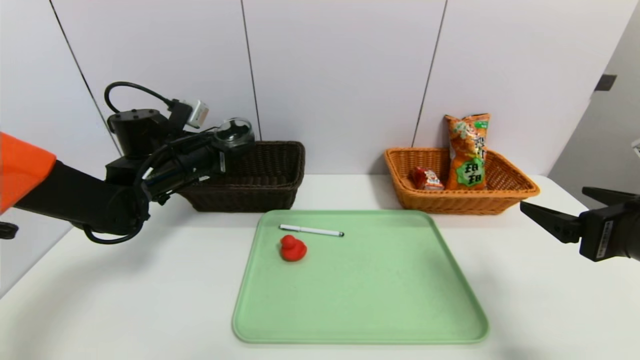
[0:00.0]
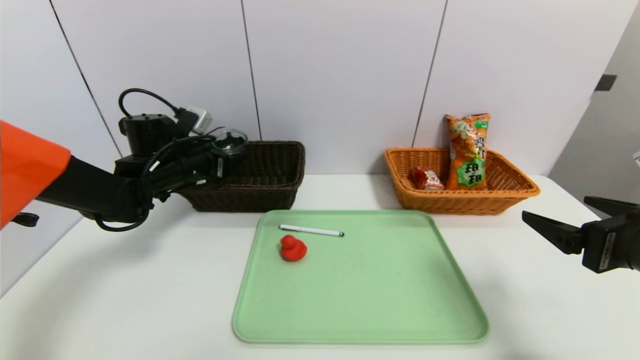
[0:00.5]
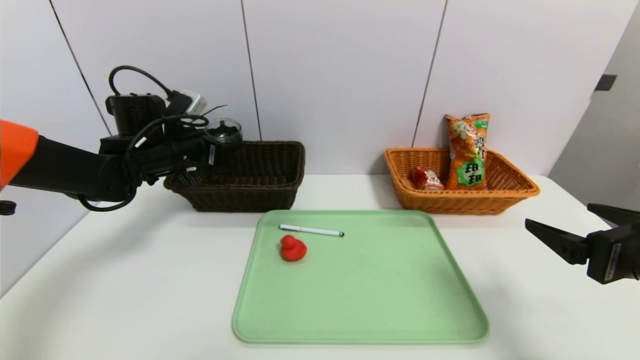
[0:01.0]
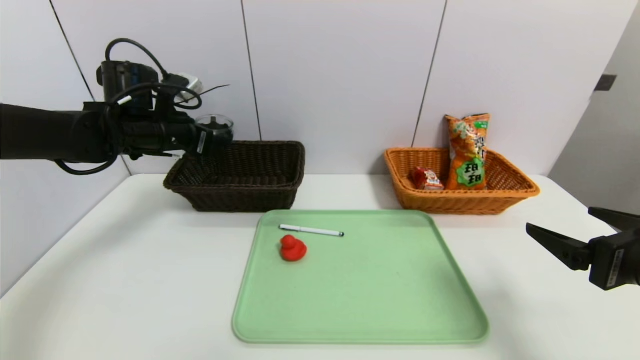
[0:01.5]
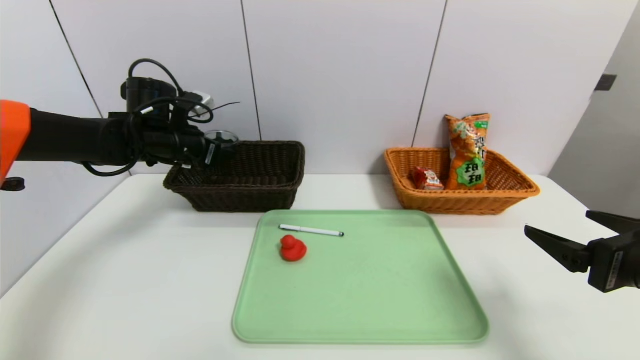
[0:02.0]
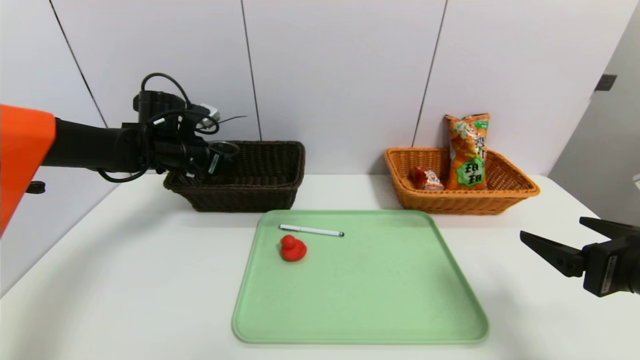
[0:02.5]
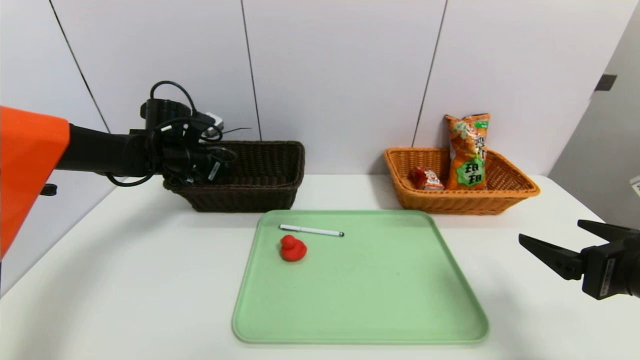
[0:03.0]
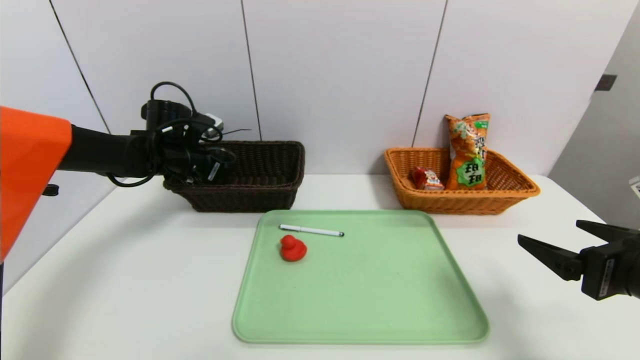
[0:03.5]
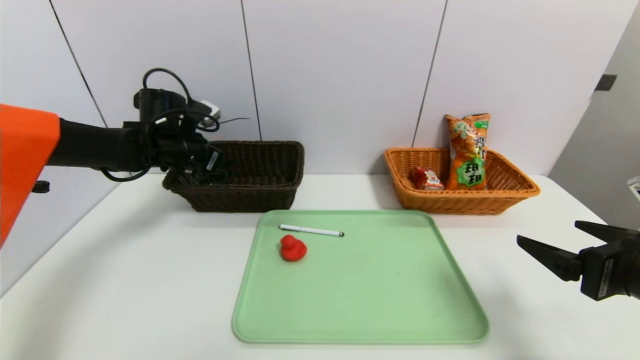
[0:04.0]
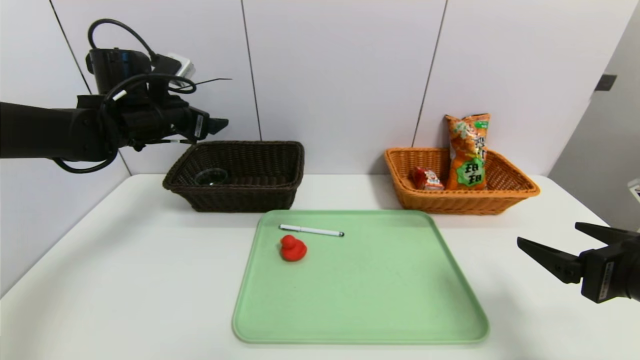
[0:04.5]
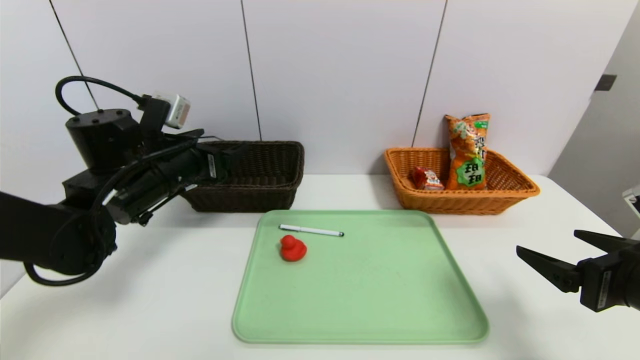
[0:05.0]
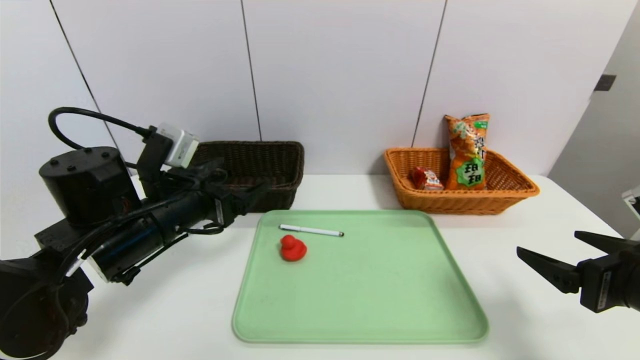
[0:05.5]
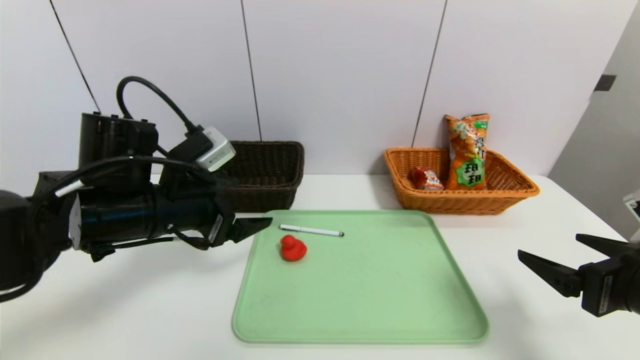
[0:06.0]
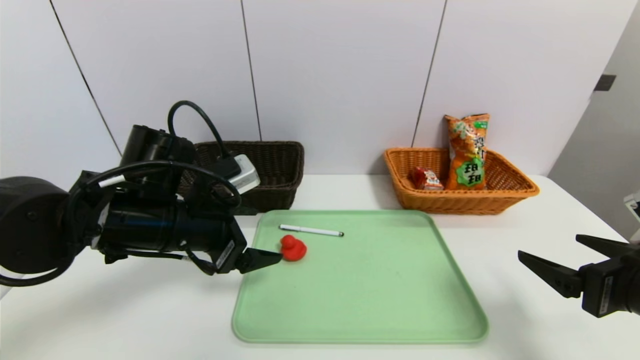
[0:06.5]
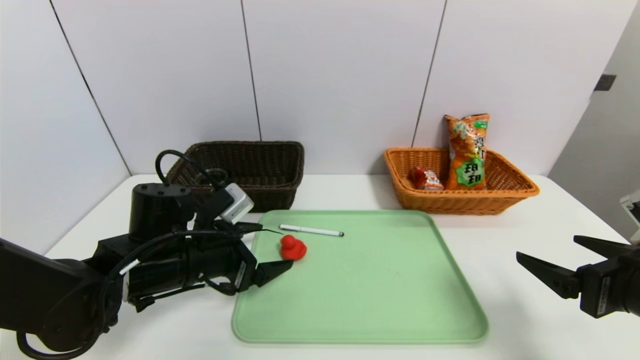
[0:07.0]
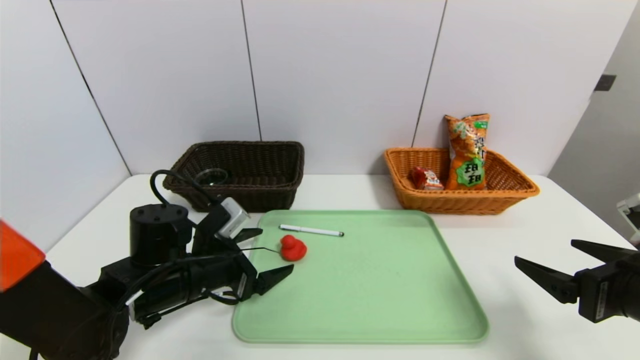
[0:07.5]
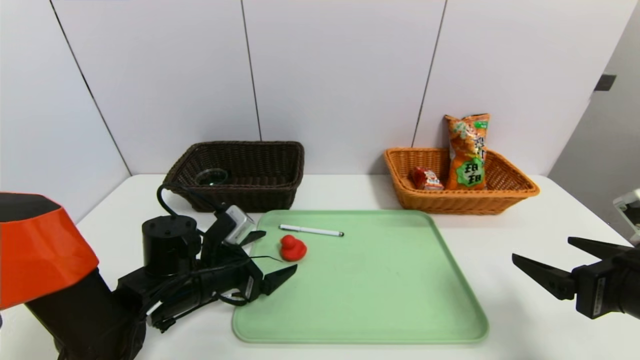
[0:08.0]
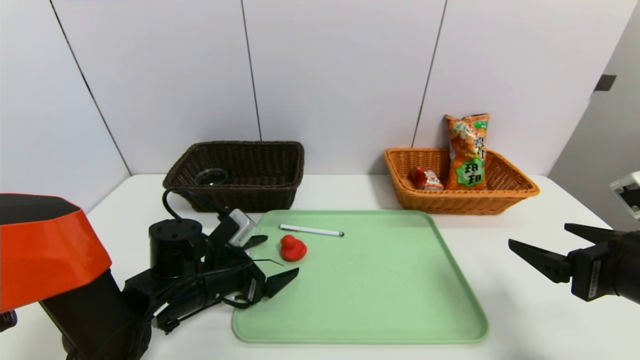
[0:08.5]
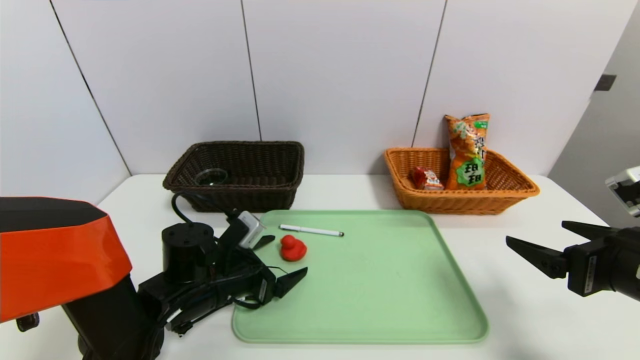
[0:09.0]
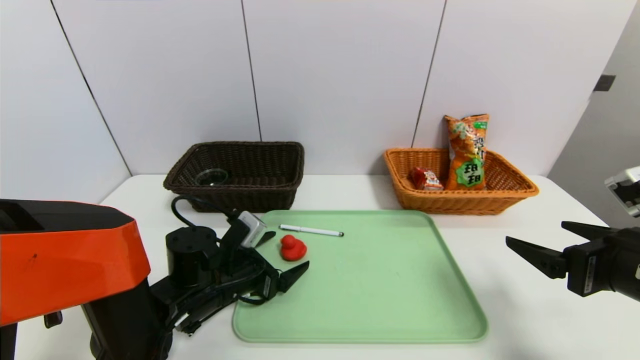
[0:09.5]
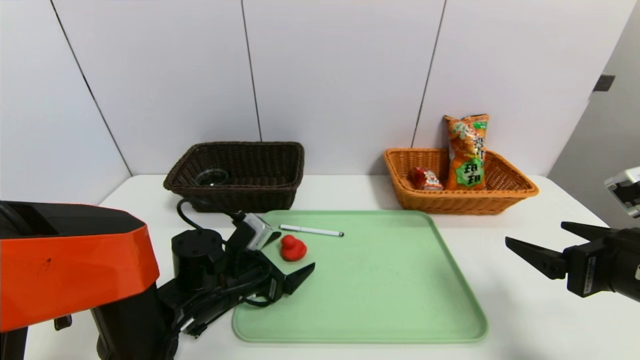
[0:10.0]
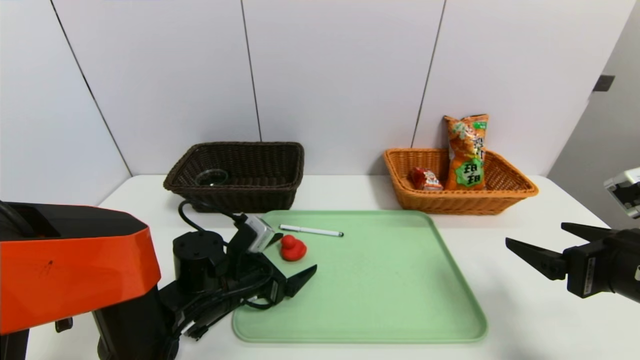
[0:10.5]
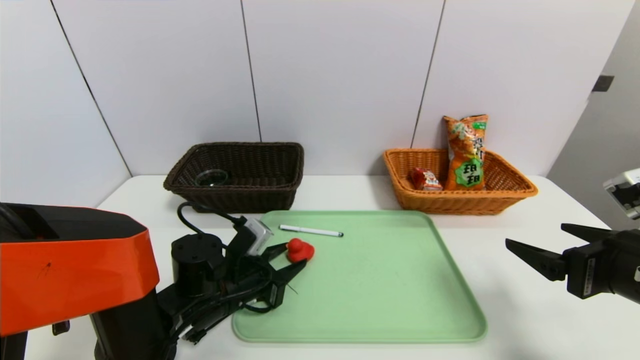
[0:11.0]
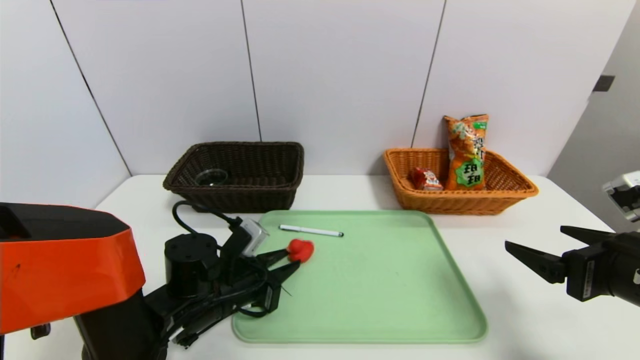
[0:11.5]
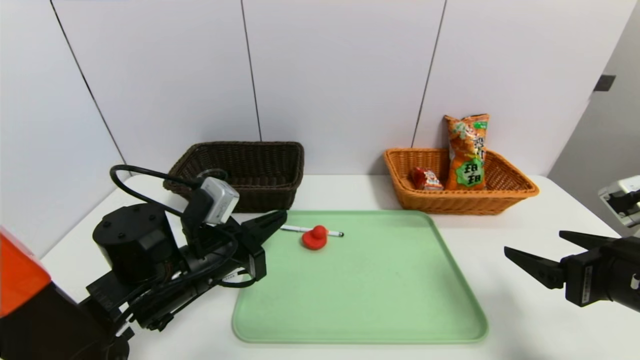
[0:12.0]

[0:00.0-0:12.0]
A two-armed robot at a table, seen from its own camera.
Task of the whole recording: place the food in the right basket with the right gripper, and place the non food items in the left basket with the left gripper.
Step, 0:00.0 to 0:04.0: Grasp the black glass cup and put it in the left basket.
0:00.0 to 0:02.0: The left gripper moves some 5 cm.
0:02.0 to 0:04.0: The grippers move only a little.
0:04.0 to 0:06.0: The left gripper moves backward, some 20 cm.
0:06.0 to 0:08.0: The left gripper goes some 15 cm downward.
0:08.0 to 0:10.0: The grippers move only a little.
0:10.0 to 0:12.0: The left gripper shifts roughly 10 cm upward, and closes up.

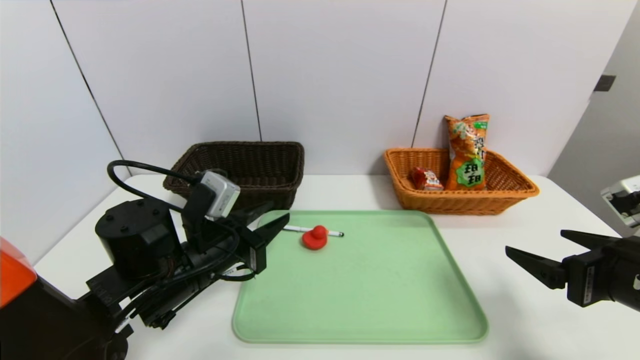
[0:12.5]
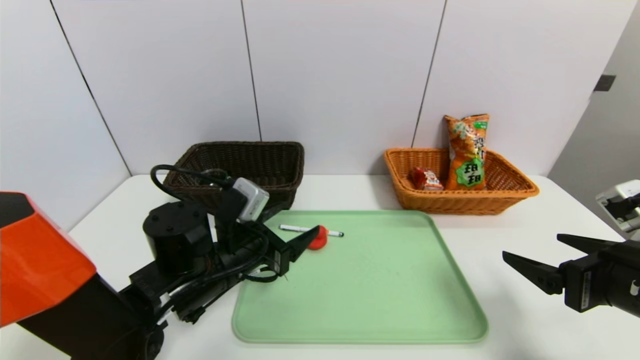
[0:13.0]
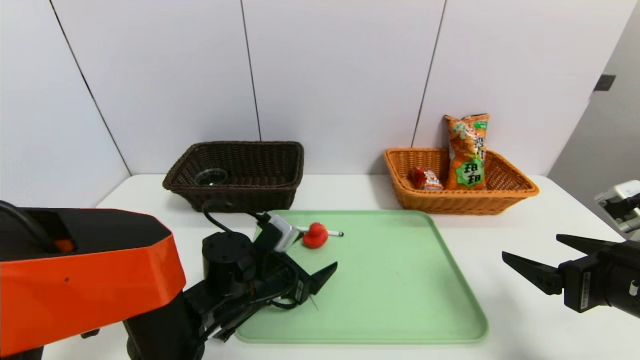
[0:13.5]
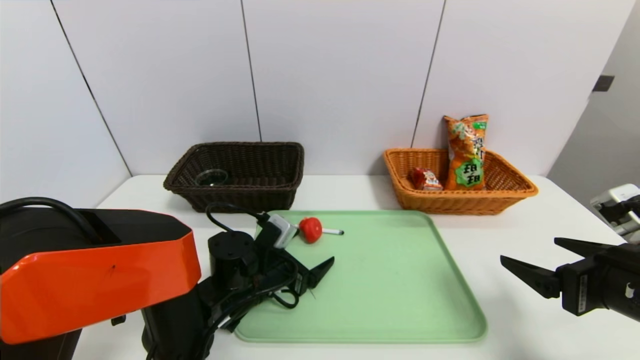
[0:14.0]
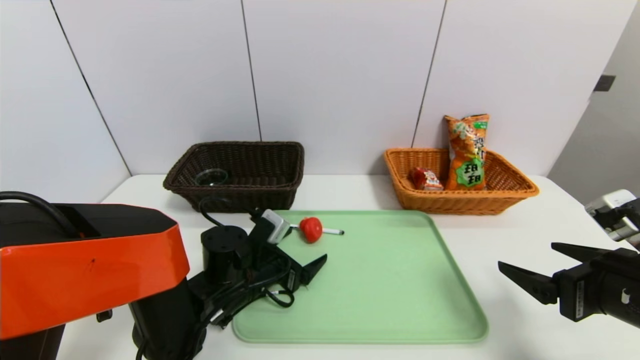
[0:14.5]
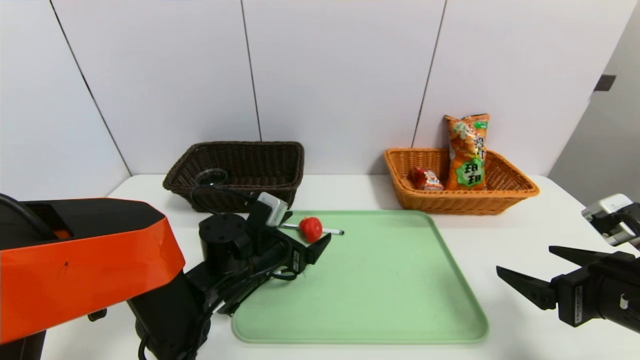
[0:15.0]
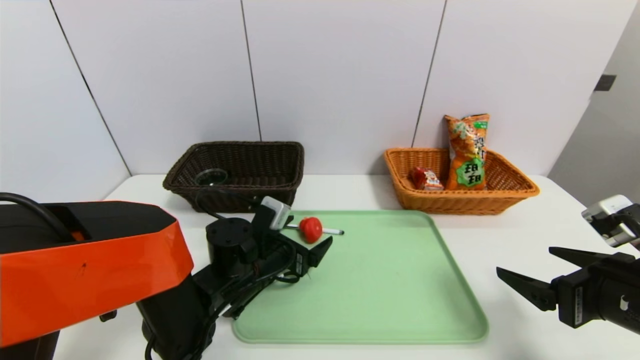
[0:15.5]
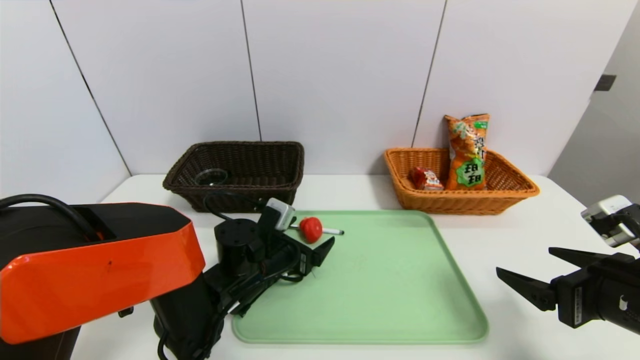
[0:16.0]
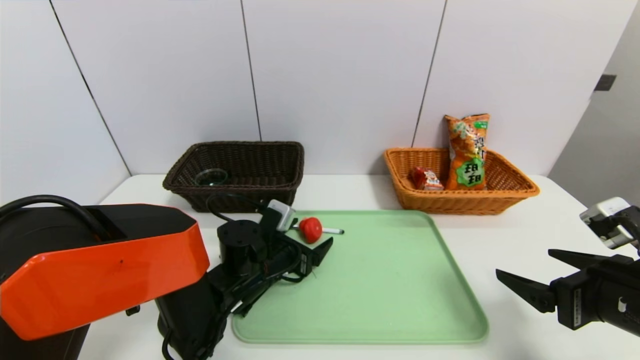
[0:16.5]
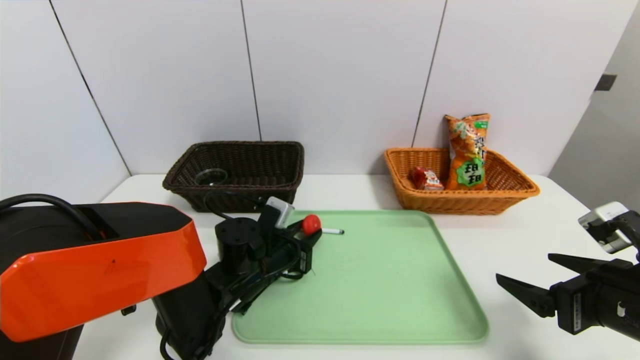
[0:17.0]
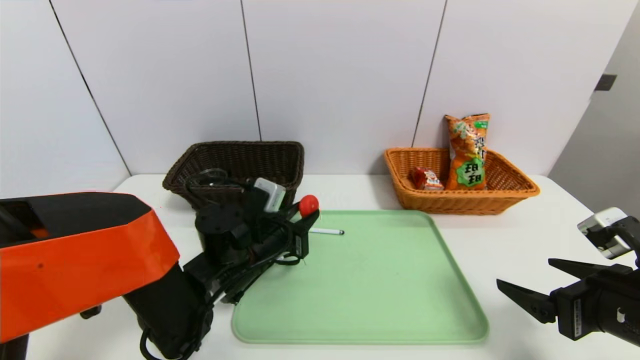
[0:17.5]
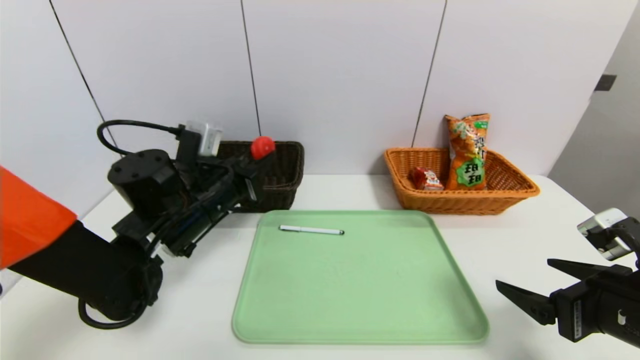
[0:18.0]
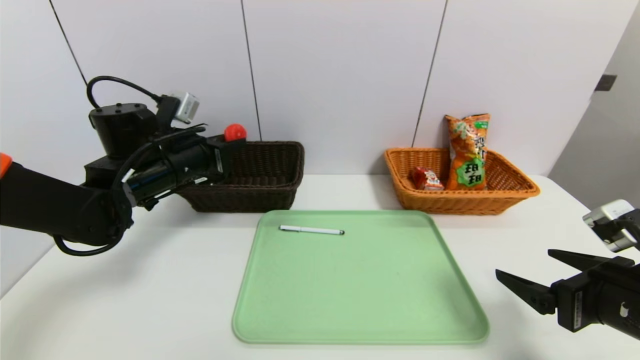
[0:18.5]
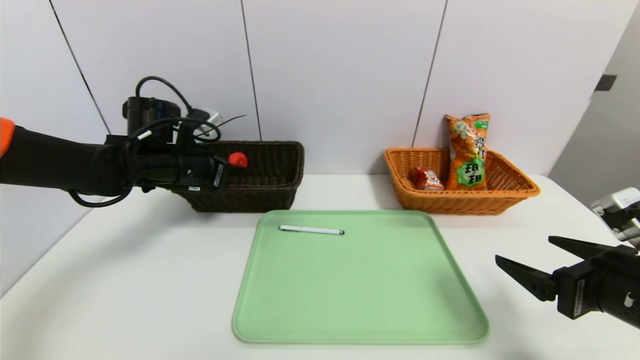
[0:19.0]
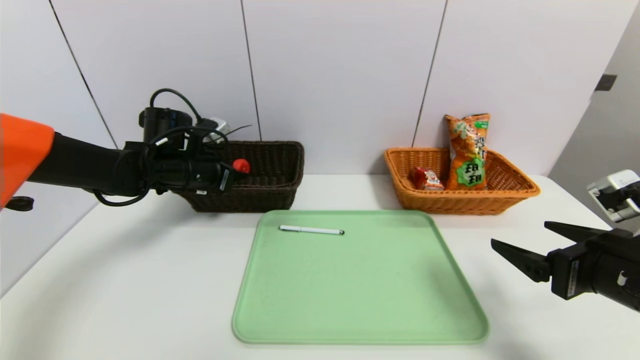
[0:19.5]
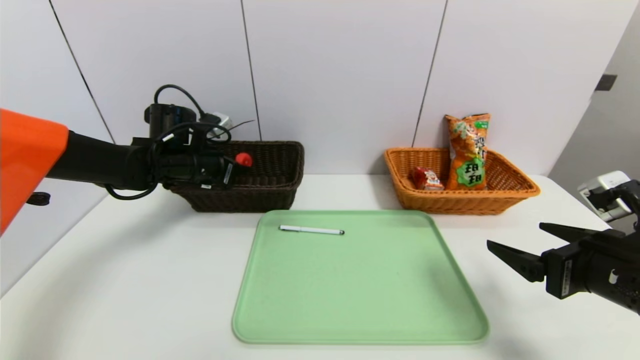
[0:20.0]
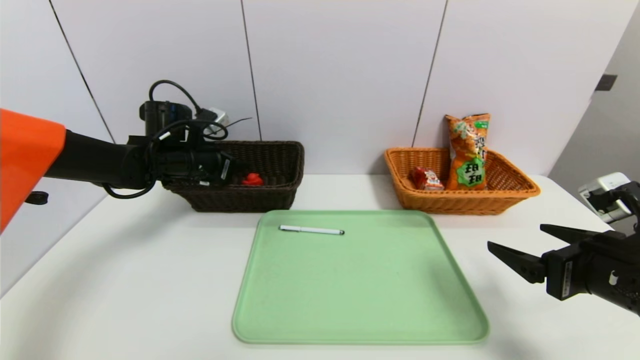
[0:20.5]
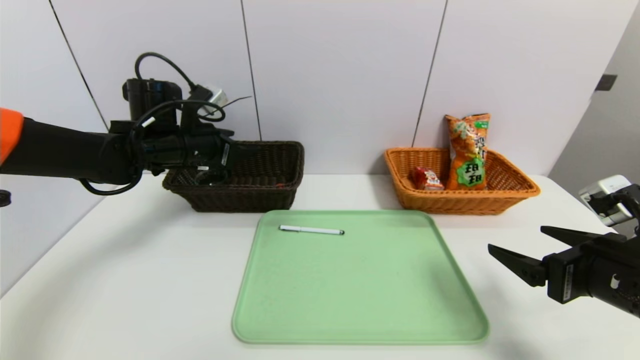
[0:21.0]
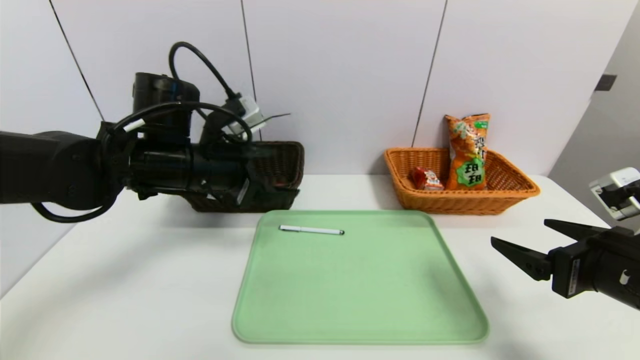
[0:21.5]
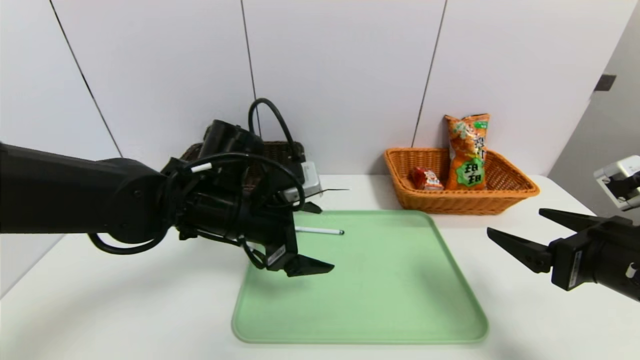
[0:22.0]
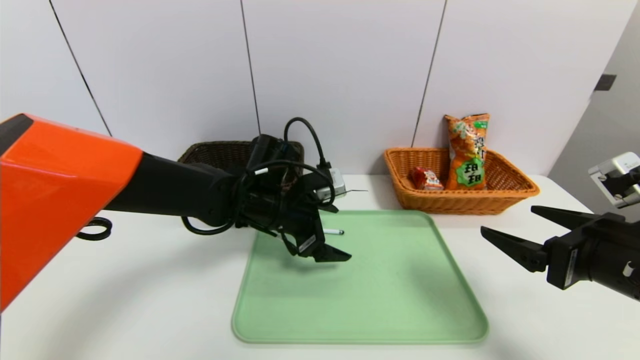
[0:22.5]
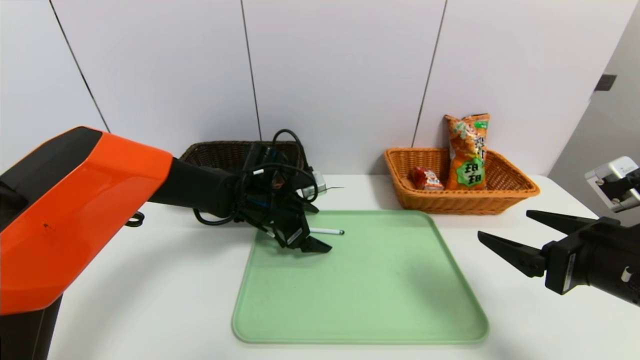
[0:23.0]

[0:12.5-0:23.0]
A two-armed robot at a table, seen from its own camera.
Task of the whole recording: place the food in the right basket with the right gripper, and place the non food items in the left basket with the left gripper.
Step, 0:12.5 to 0:20.5: Grasp the red duck and put it in the left basket.
0:12.5 to 0:14.5: The left gripper travels downward by about 10 cm, and opens its fingers.
0:14.5 to 0:16.5: The grippers make only small movements.
0:16.5 to 0:19.0: The left gripper goes roughly 20 cm upward, to the left and forward, and closes up.
0:19.0 to 0:21.0: The left gripper opens its fingers.
0:21.0 to 0:23.0: The left gripper heads to the right and downward, covering roughly 15 cm.
